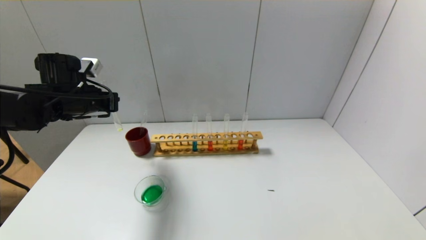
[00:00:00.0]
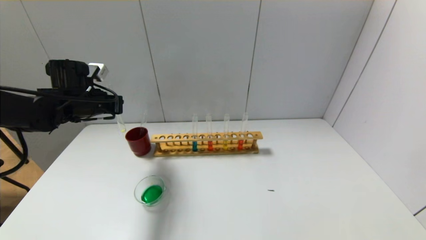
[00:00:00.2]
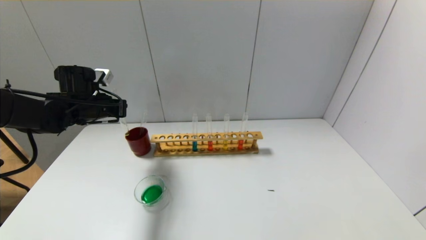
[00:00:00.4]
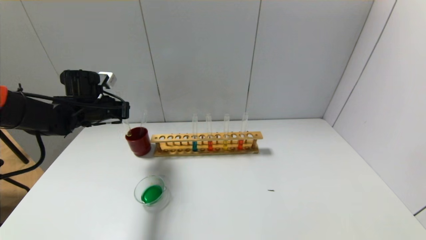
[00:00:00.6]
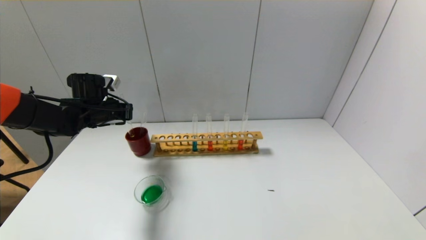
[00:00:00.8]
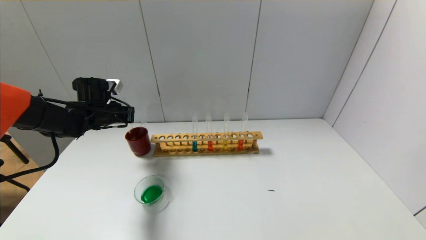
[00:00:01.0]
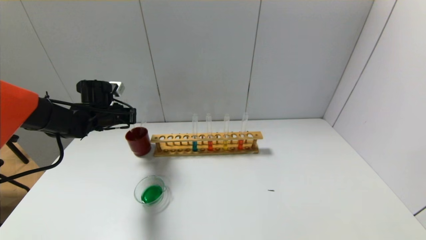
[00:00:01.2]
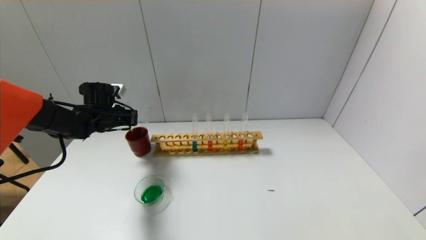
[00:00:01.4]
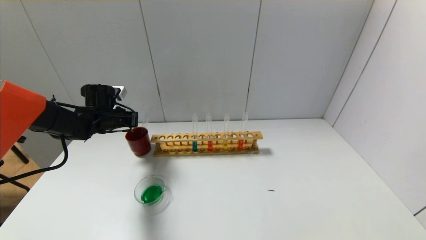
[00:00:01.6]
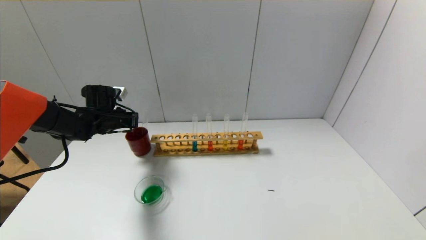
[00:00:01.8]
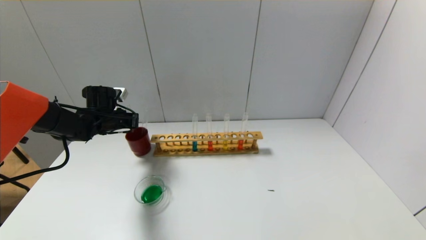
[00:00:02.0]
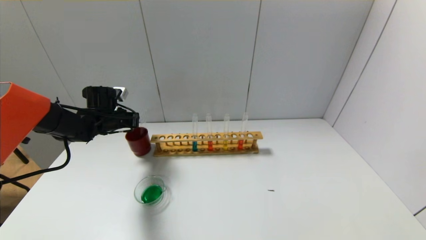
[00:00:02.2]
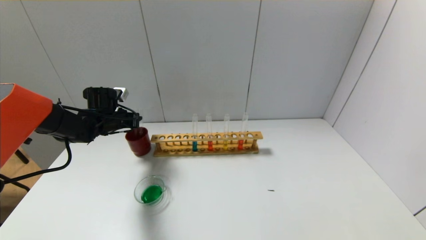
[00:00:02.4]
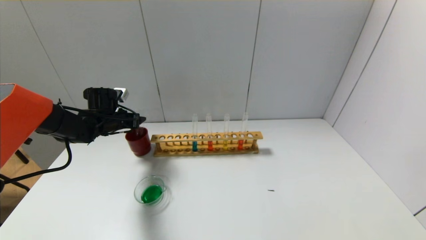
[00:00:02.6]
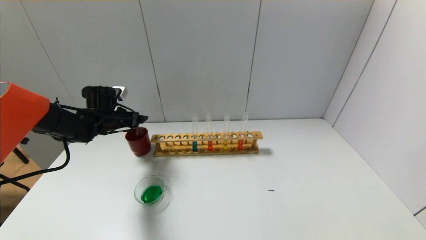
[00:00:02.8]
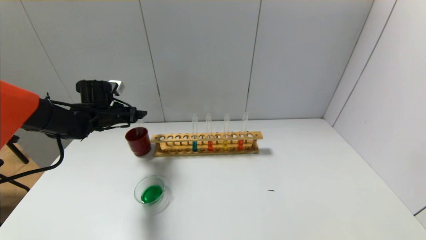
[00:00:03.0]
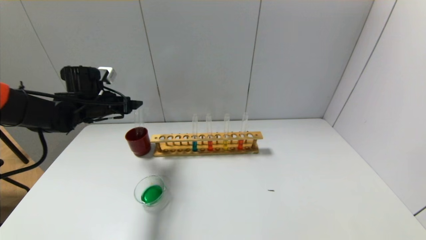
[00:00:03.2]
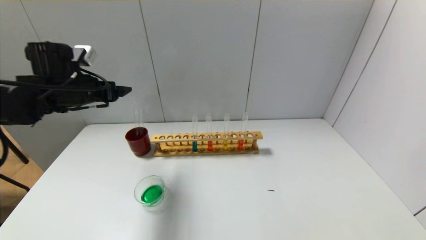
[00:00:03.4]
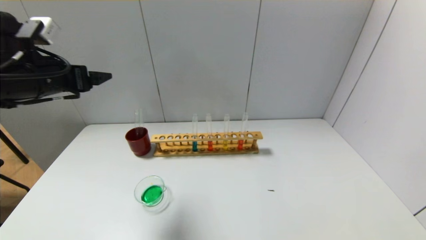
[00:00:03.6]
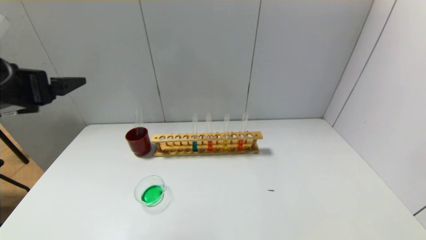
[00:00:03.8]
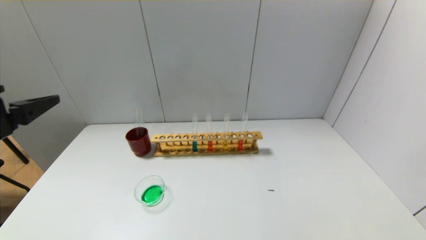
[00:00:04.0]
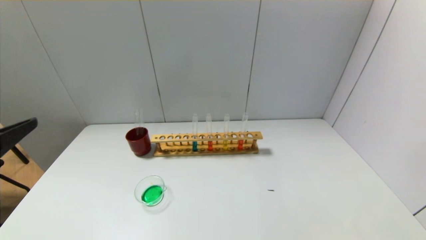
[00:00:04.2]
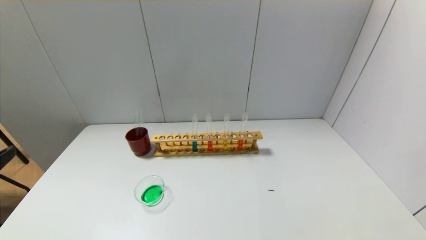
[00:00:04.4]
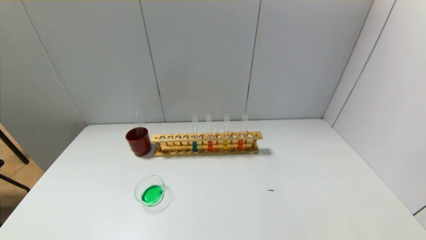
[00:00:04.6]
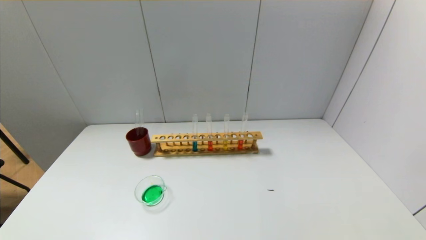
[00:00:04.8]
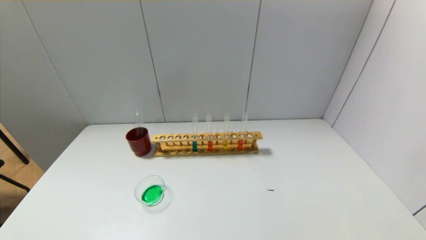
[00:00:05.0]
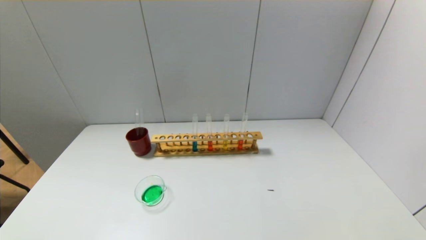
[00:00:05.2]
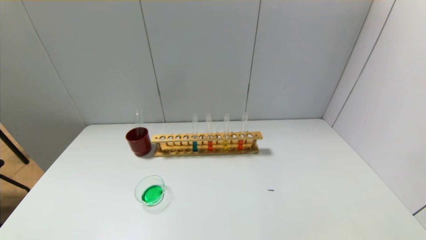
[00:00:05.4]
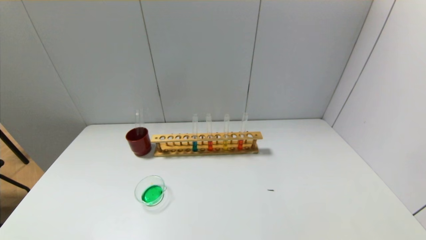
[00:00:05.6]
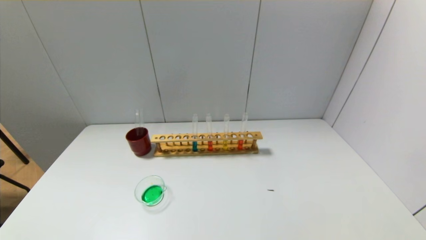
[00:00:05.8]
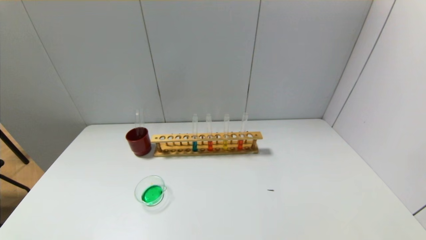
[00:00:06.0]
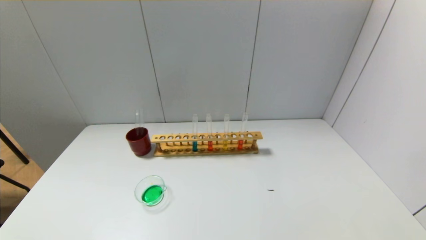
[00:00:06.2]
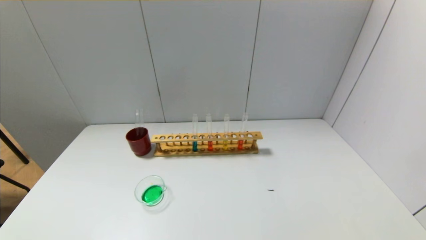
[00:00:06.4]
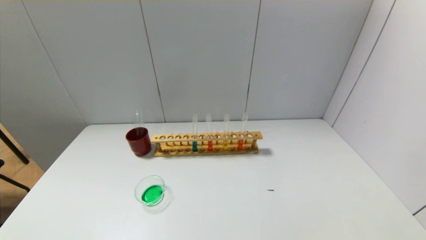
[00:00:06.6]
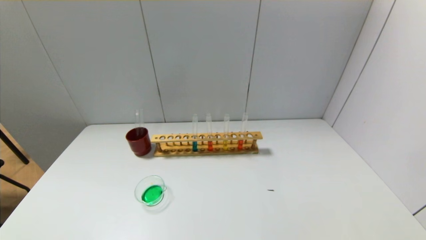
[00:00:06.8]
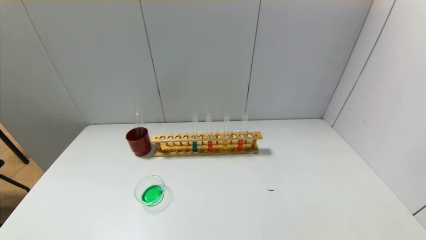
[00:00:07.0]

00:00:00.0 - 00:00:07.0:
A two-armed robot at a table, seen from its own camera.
Step, 00:00:00.0 - 00:00:02.4: Place the test tube into the brown cup with the left gripper.
00:00:00.0 - 00:00:01.4: The left gripper goes some 10 cm downward and forward.
00:00:01.4 - 00:00:02.8: The left gripper opens its fingers.
00:00:02.8 - 00:00:04.2: The left gripper goes some 35 cm backward.
00:00:04.2 - 00:00:05.6: The left gripper moves downward and backward, some 20 cm.
